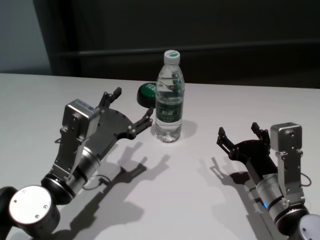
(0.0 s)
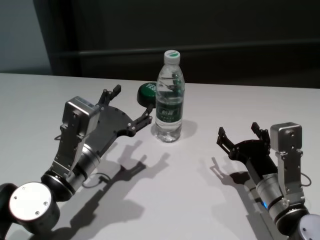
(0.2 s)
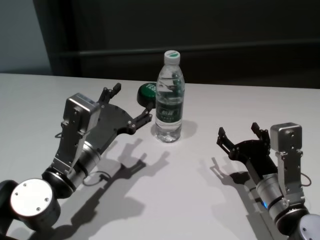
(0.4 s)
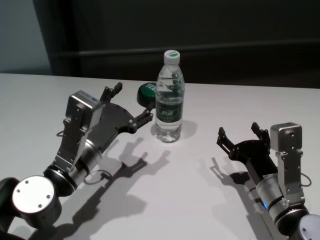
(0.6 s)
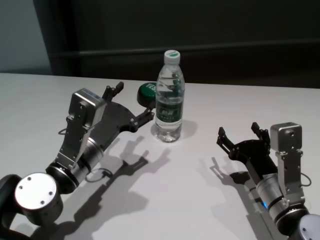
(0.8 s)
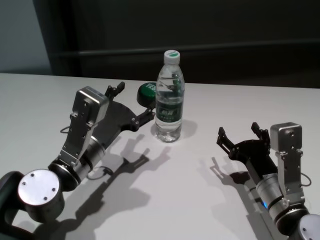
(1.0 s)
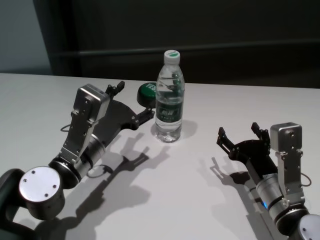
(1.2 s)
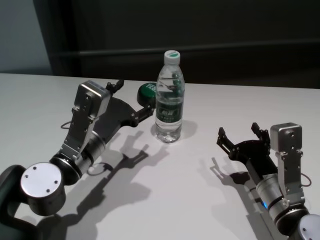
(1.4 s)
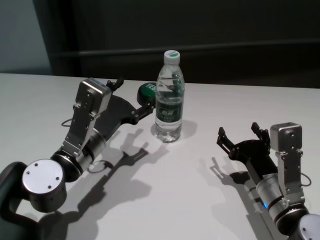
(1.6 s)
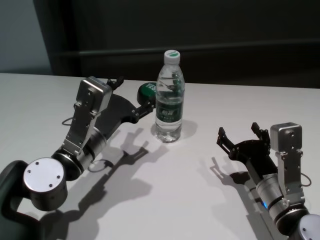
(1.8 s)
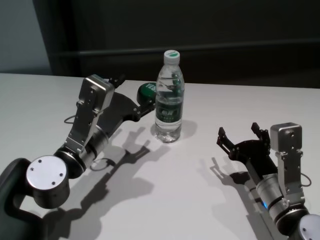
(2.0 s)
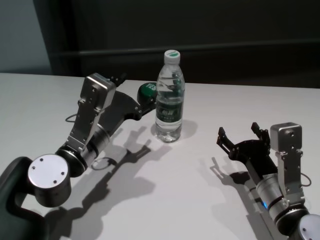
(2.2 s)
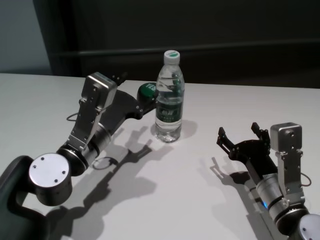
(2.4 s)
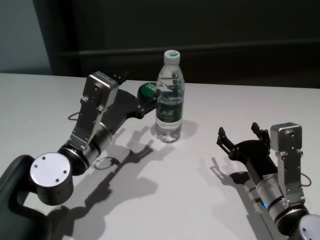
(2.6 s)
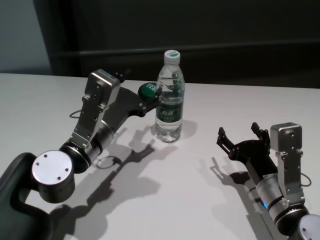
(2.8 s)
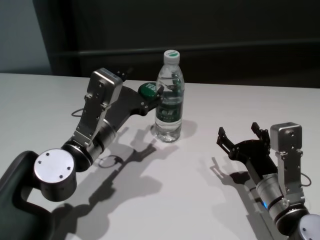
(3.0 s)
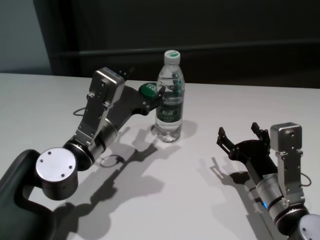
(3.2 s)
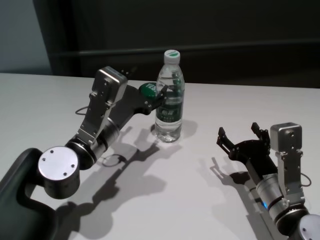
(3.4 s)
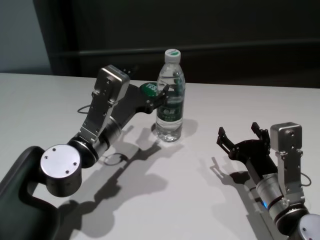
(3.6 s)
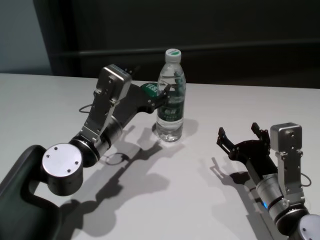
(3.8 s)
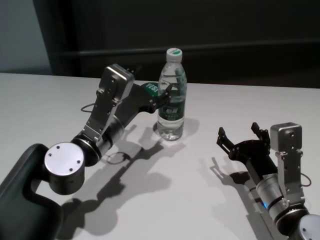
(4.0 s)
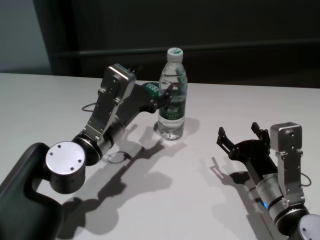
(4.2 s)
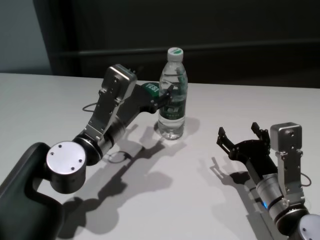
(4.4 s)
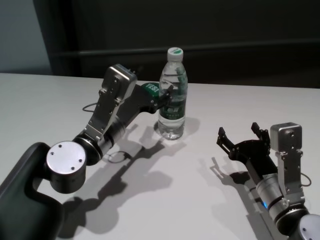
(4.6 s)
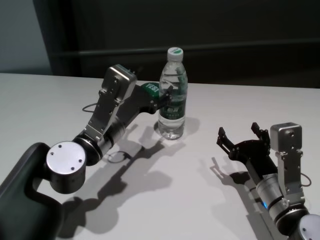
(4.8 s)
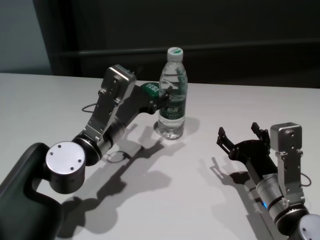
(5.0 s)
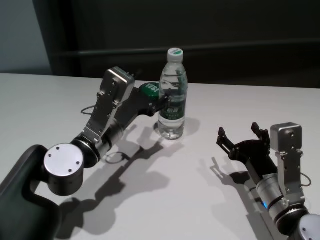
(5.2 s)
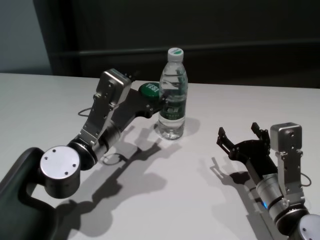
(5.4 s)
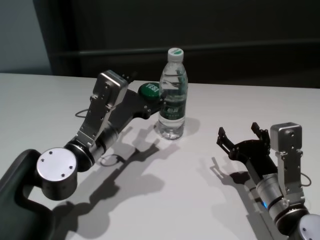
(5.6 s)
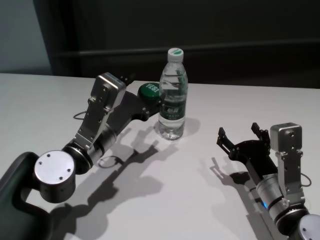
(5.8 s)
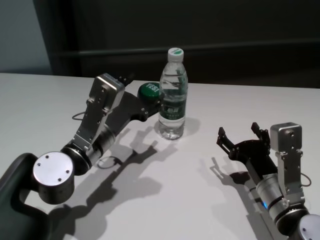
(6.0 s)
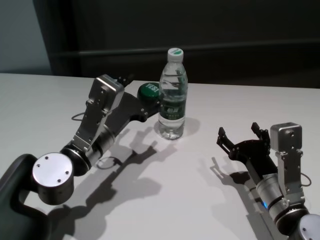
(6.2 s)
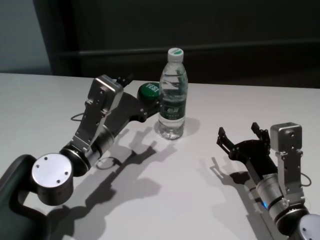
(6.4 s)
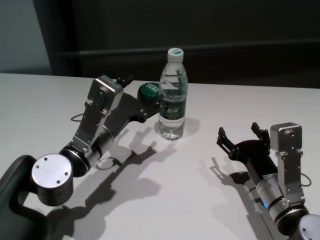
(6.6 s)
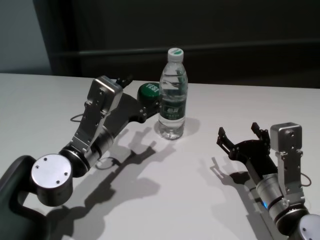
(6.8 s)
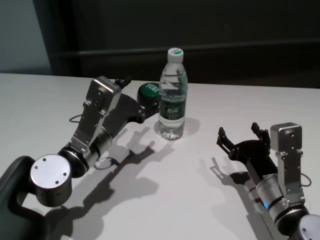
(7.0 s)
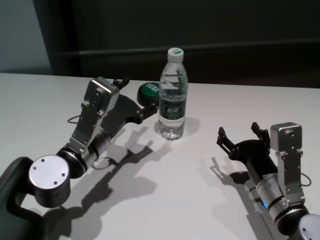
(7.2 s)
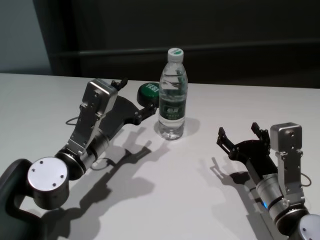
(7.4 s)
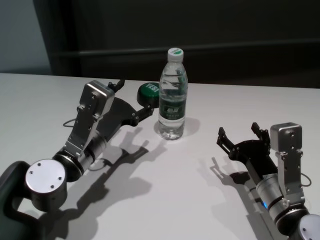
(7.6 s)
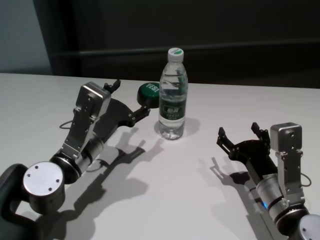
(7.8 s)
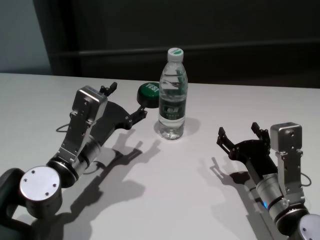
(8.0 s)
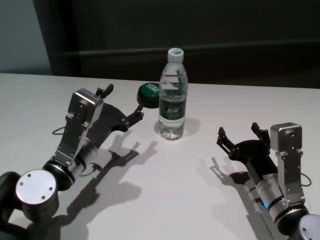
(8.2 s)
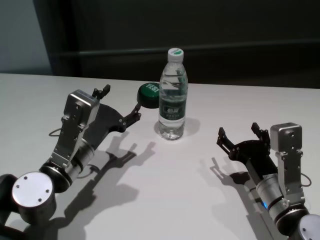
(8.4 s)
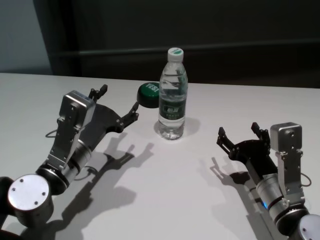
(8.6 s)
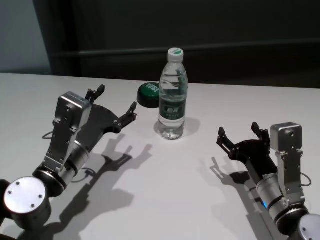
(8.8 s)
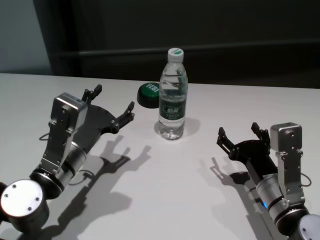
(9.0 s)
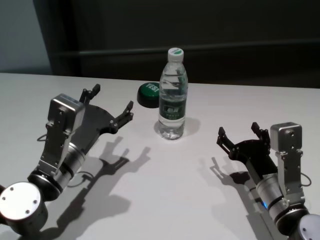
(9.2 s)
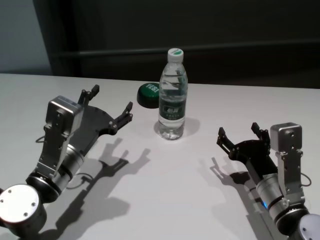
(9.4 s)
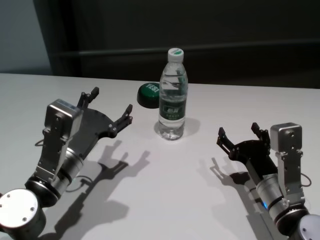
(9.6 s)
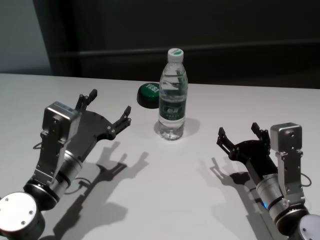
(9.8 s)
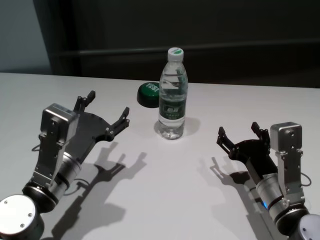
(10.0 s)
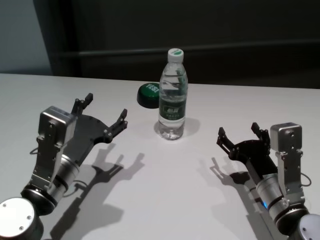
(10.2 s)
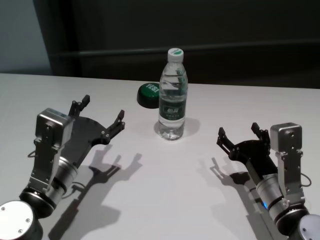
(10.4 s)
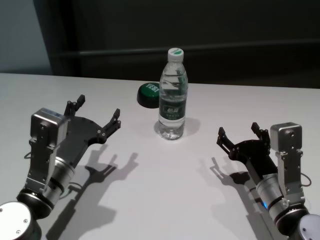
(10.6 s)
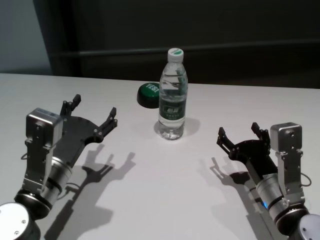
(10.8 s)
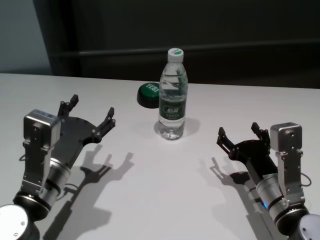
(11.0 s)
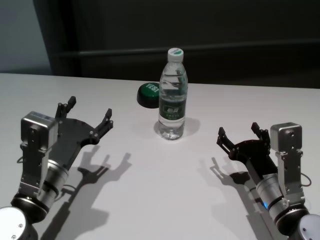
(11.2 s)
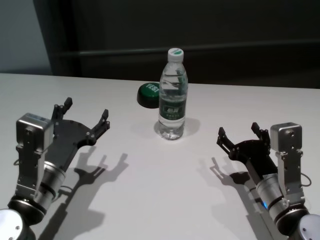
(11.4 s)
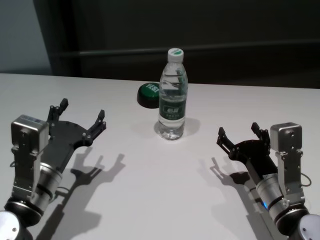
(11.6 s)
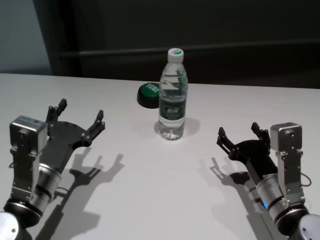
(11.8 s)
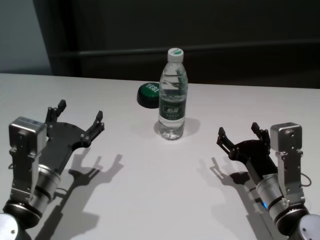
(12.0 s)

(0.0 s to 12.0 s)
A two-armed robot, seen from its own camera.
Task of the whole recording: return to a safe position after touching an obstacle with your arm on the white table.
Step, 0.0 s - 7.4 s: Touch the bottle with left gripper.

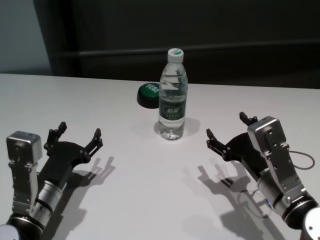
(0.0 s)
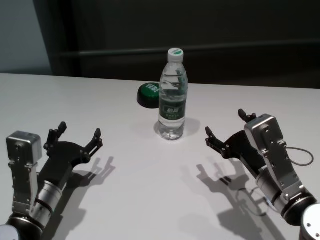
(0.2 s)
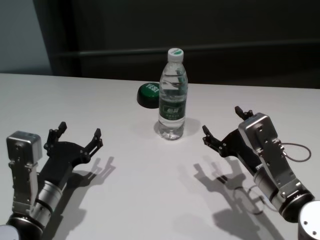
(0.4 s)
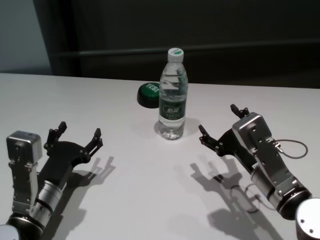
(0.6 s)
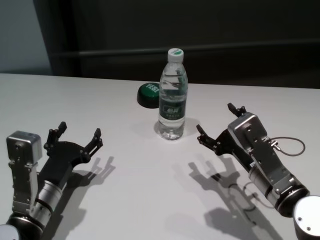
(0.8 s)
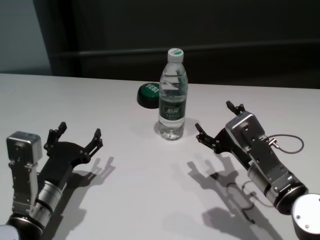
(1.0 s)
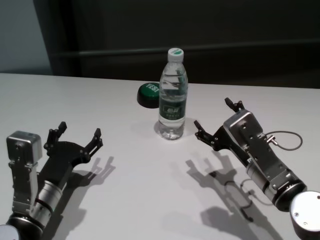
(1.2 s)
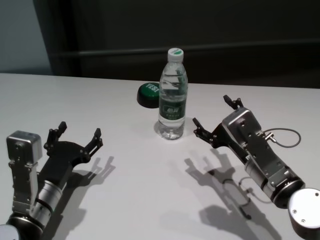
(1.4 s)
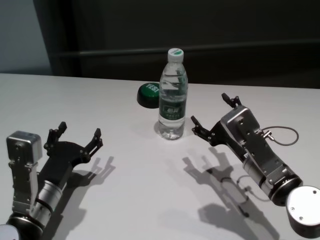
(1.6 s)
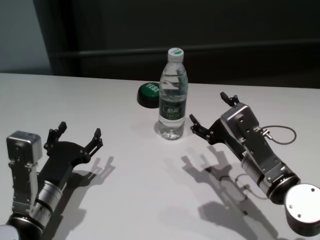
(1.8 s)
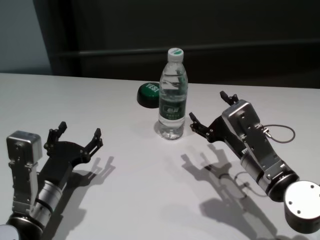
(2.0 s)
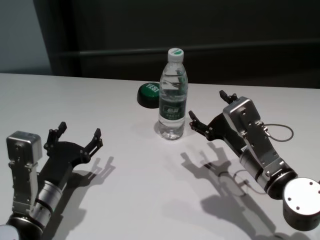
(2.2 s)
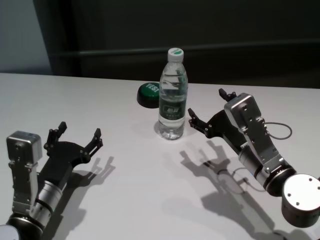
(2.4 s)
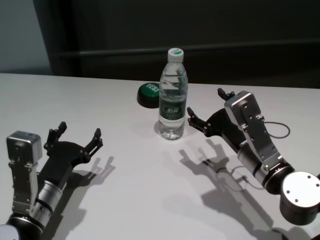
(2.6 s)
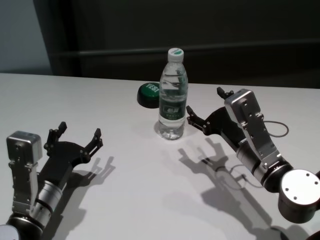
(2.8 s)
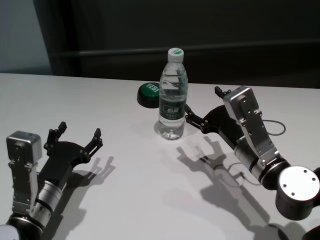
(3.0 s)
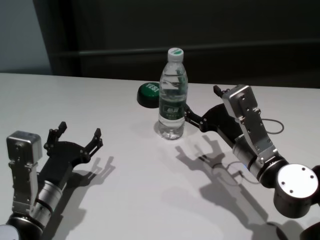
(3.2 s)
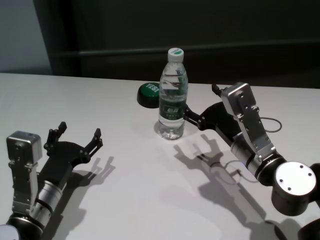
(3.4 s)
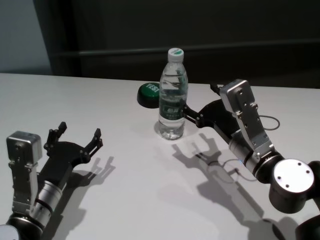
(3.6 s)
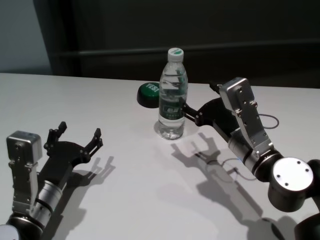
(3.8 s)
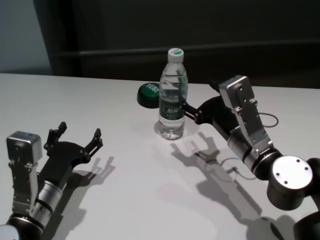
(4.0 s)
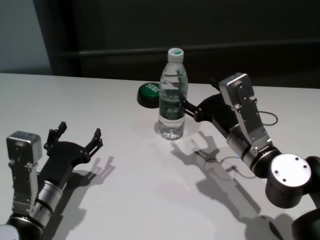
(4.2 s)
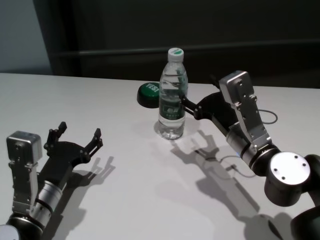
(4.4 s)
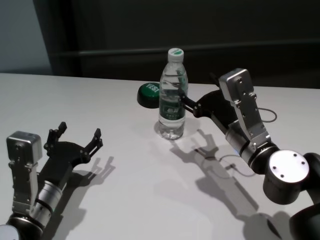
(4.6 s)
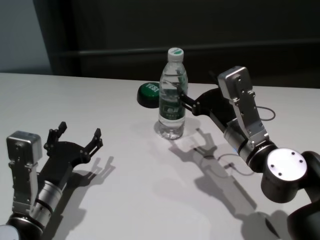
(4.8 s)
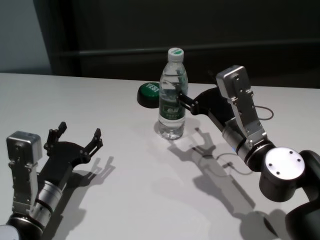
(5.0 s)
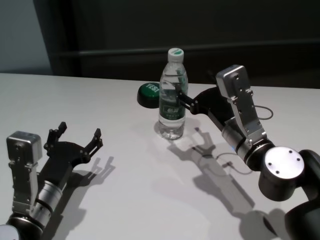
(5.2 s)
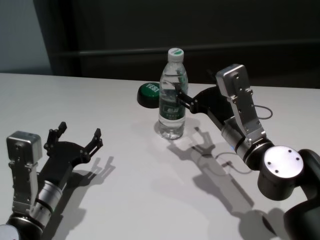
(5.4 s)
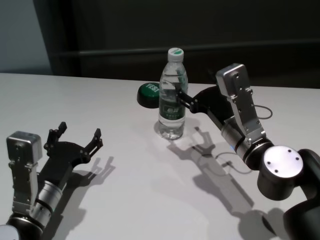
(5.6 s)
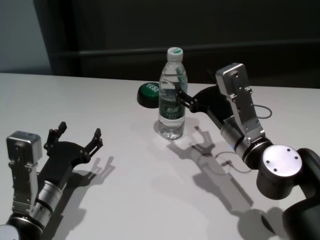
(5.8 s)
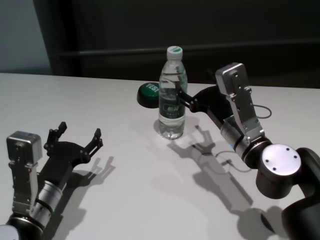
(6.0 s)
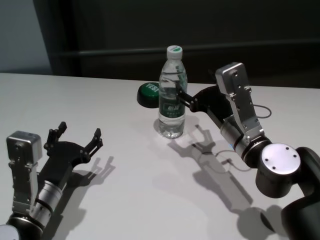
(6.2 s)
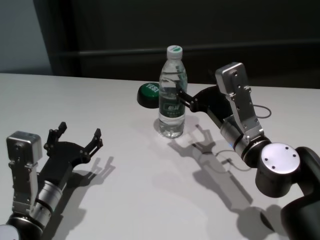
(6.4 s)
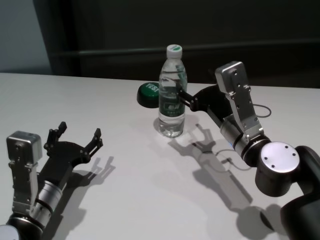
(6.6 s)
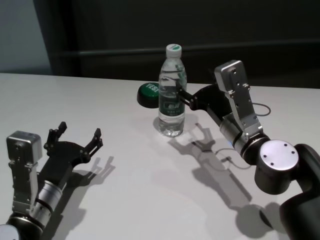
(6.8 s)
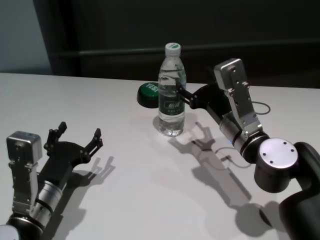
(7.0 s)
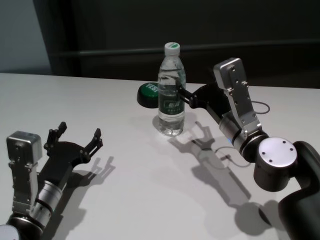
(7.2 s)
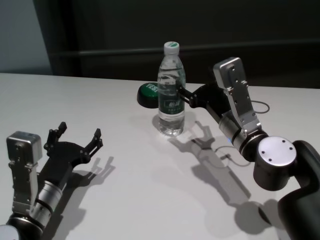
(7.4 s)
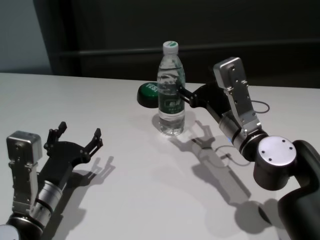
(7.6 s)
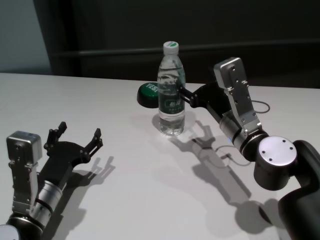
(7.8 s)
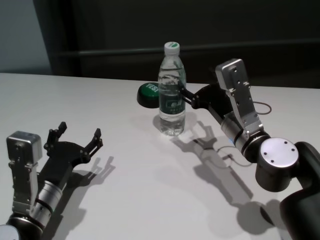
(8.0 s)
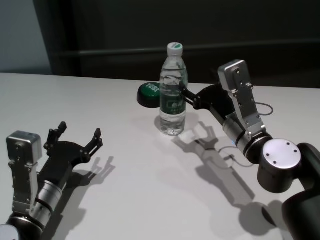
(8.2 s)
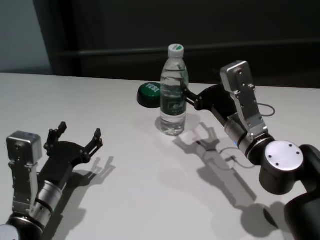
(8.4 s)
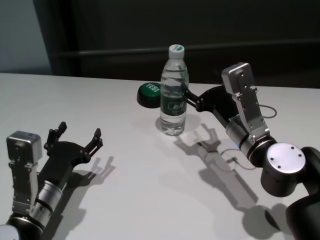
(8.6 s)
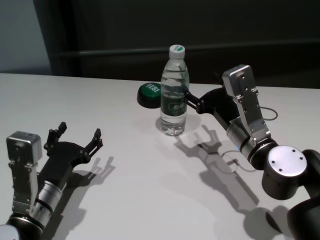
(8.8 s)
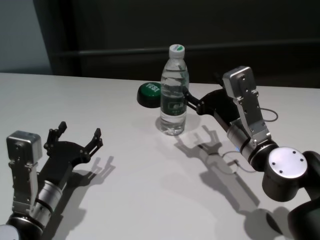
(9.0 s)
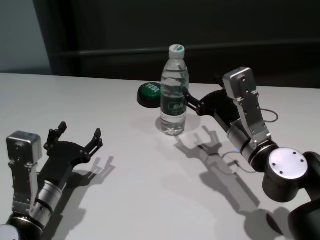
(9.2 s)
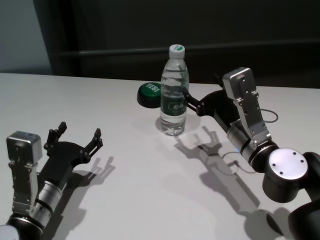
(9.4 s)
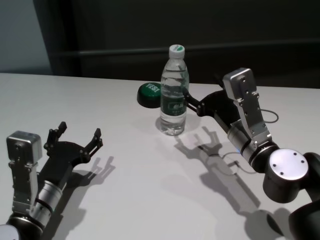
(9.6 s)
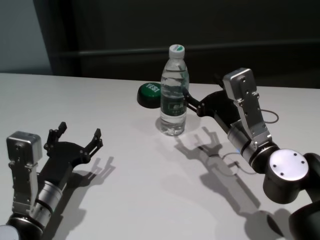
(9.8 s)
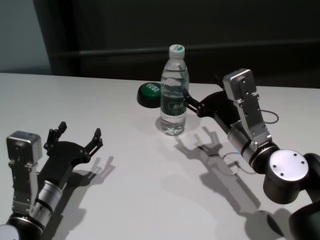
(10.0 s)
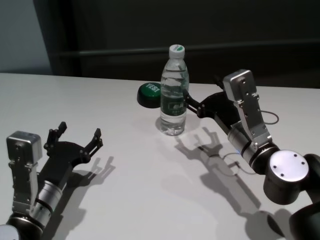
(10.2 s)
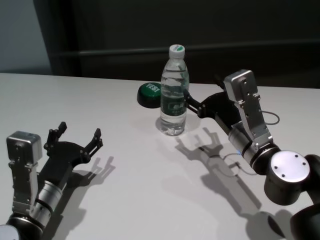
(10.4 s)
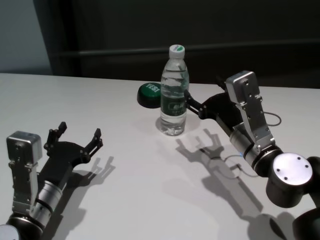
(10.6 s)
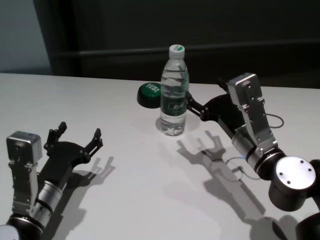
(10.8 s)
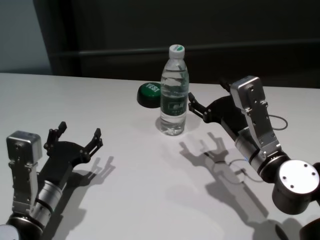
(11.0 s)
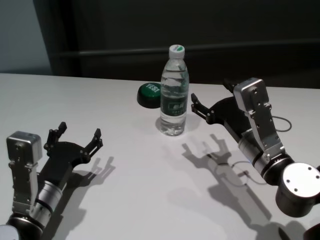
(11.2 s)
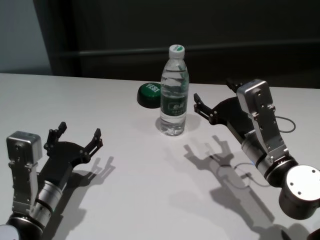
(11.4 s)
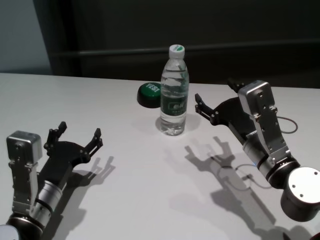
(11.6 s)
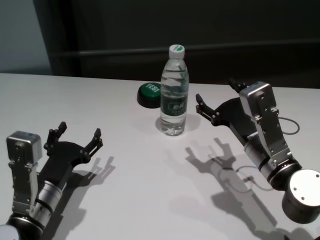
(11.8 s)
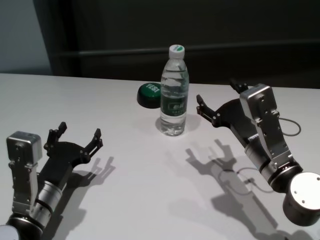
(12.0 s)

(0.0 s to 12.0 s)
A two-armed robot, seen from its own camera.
Task of the whole recording: return to a safe position after touching an obstacle with your arm on the white table.
Step, 0.0 s - 11.2 s: Touch the bottle with right gripper.
